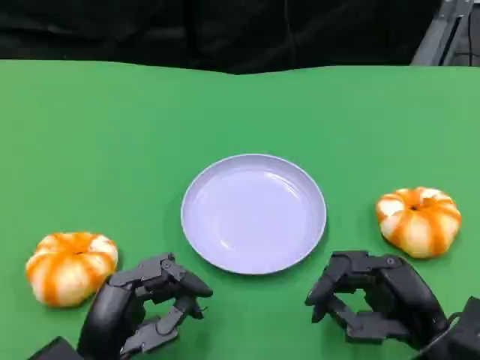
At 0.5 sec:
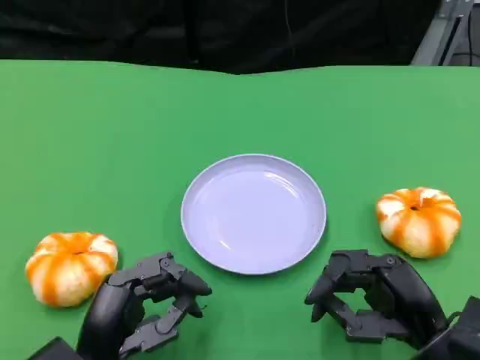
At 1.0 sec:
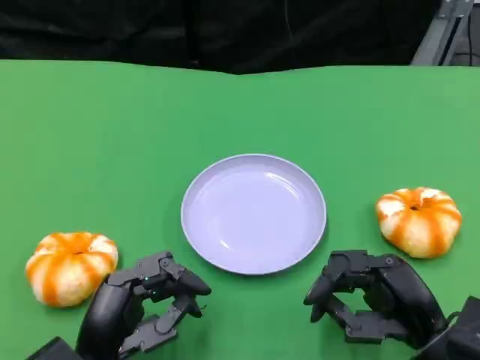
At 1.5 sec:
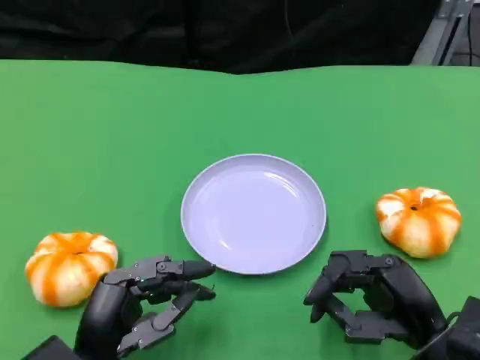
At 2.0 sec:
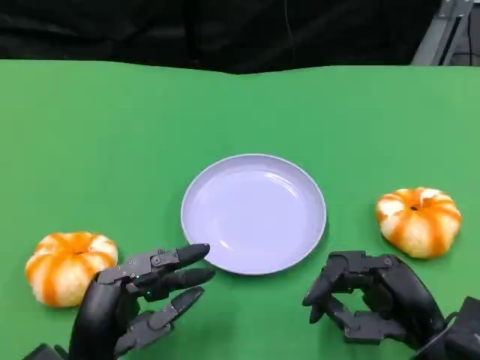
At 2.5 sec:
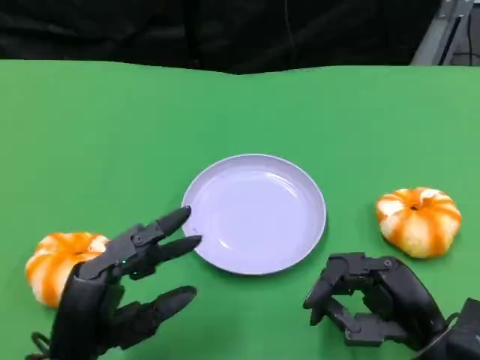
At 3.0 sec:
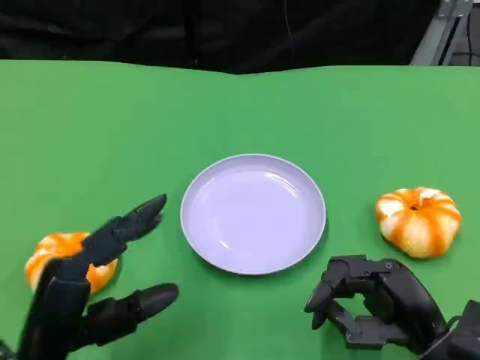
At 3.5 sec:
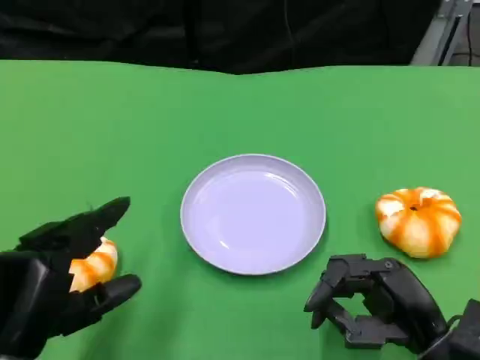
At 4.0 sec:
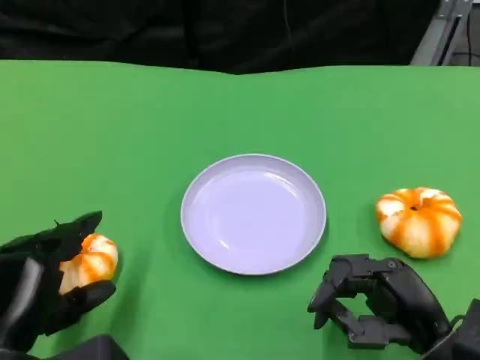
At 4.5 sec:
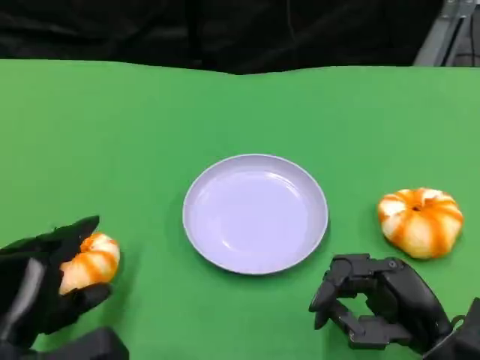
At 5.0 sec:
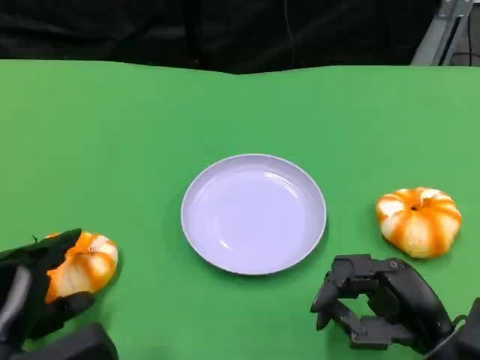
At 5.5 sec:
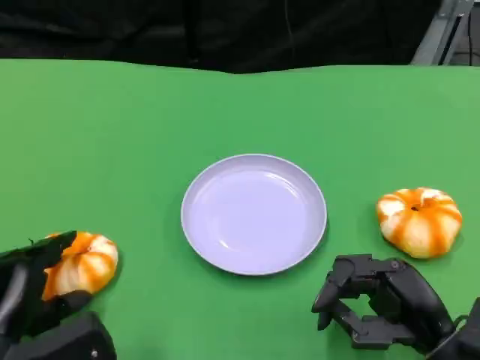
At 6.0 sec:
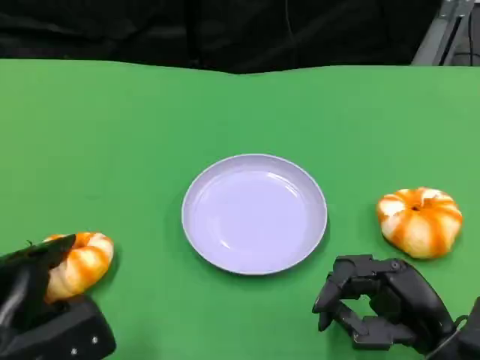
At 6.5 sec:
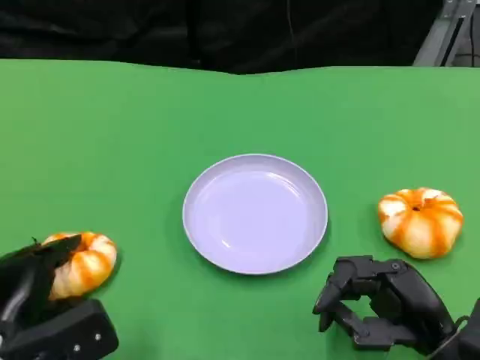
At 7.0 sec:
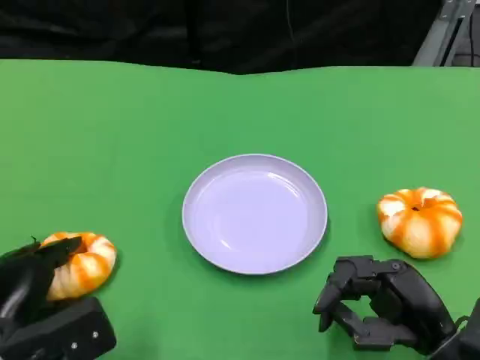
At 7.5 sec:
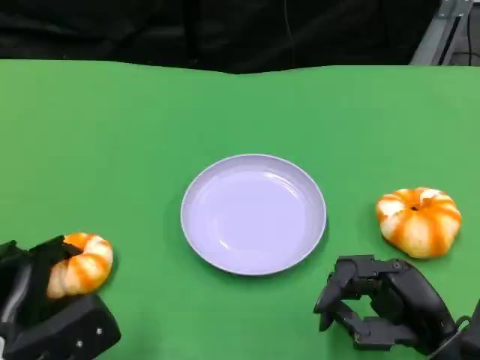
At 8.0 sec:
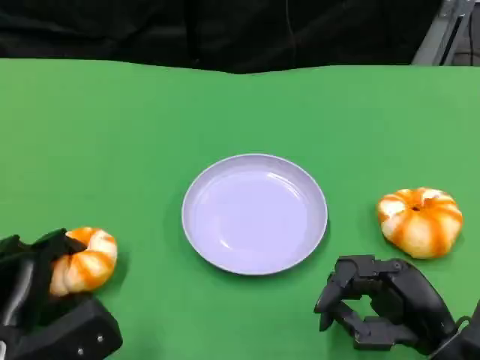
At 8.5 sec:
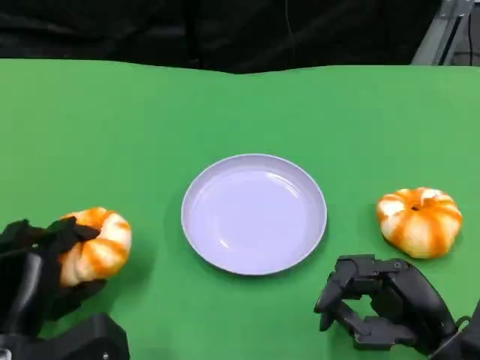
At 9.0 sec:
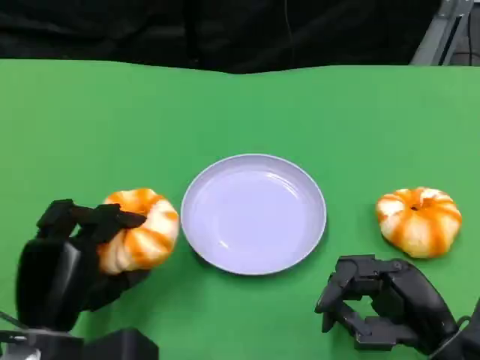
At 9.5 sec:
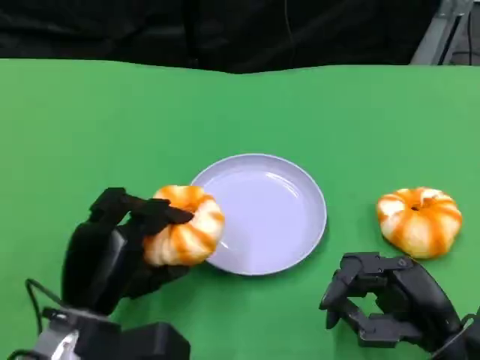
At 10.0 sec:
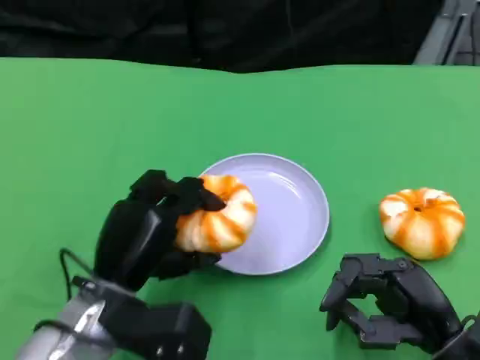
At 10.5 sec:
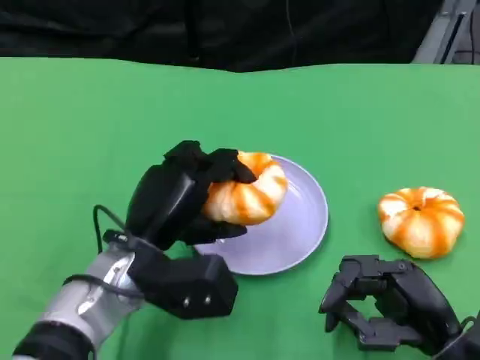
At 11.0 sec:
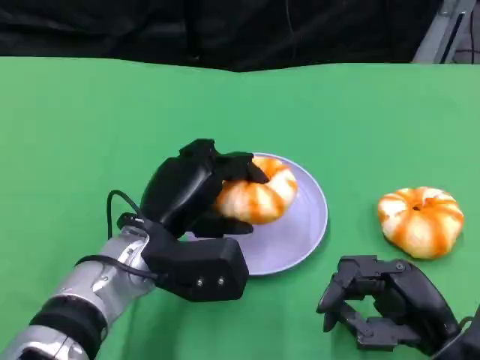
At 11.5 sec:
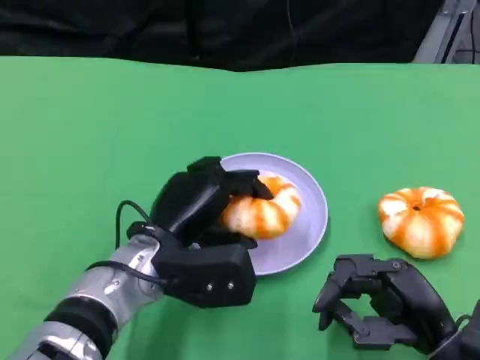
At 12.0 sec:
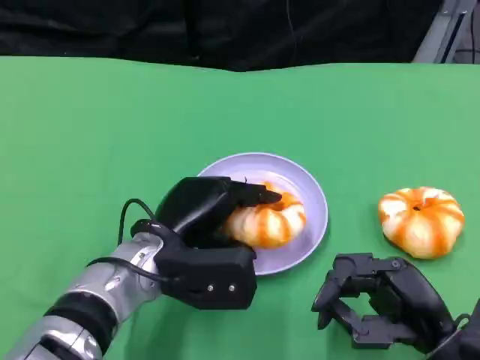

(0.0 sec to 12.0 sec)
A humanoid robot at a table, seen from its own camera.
Task of the whole recording: Grasp the bread from the table and place it into the plate.
0.0 sec - 2.0 sec: The hands make only small movements.
2.0 sec - 4.0 sec: The left hand heads to the left, covering roughly 5 cm.
4.0 sec - 6.0 sec: The left hand shifts by some 5 cm.
6.0 sec - 8.0 sec: The hands stay close to where they were, moving slightly.
8.0 sec - 10.0 sec: The left hand travels to the right by some 10 cm.
10.0 sec - 12.0 sec: The left hand shifts by some 5 cm.

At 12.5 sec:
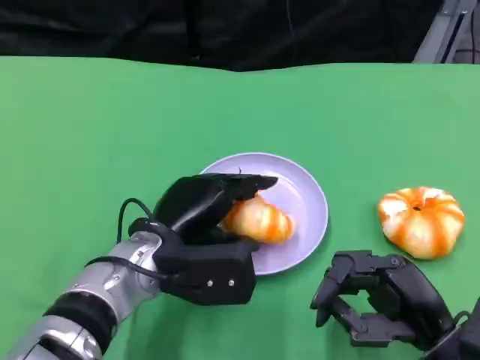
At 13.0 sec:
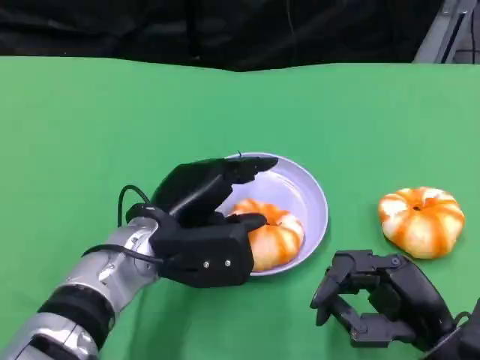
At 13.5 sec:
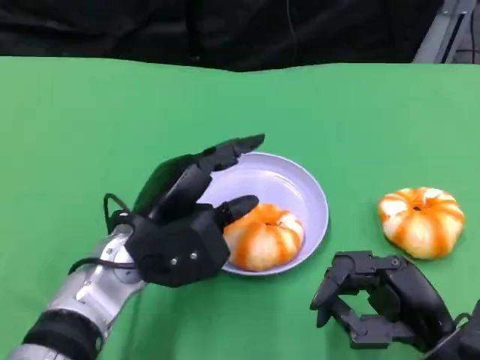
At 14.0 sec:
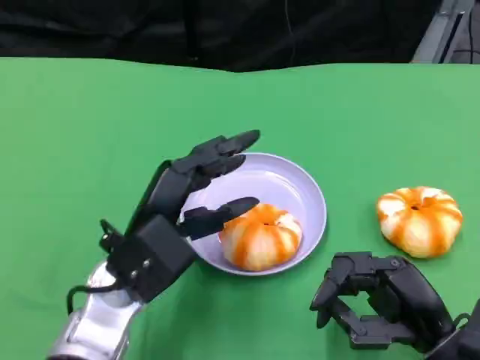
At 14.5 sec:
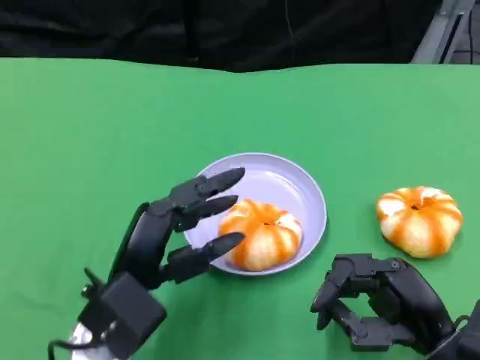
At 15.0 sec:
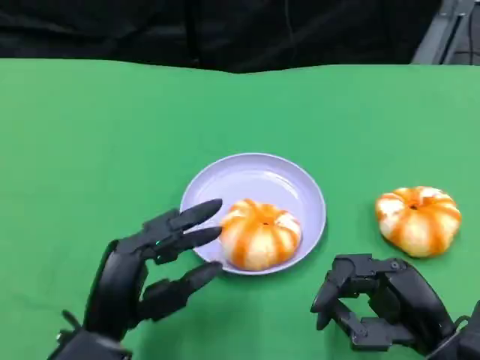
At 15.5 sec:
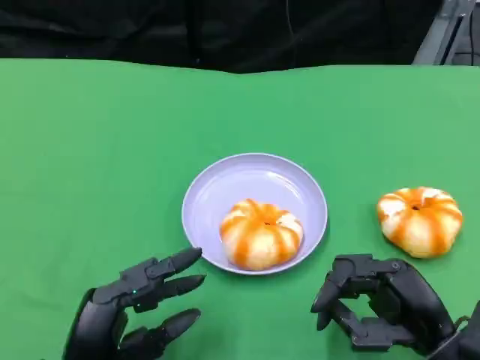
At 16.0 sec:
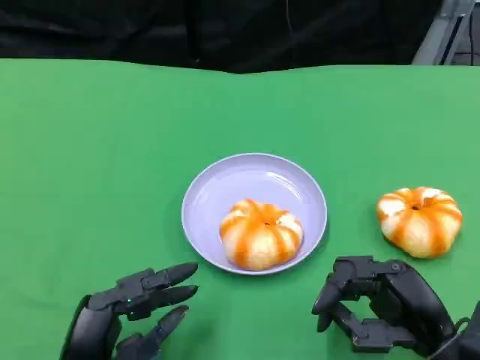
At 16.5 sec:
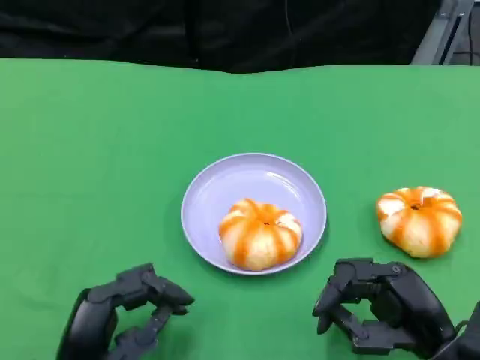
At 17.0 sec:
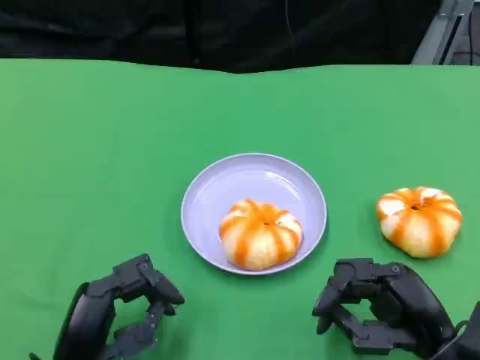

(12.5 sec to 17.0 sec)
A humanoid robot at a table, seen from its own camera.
Task of the whole recording: Grasp the bread from the table and place it into the plate.
12.5 sec - 14.5 sec: The left hand heads backward, covering roughly 5 cm.
14.5 sec - 17.0 sec: The left hand travels downward and backward by some 10 cm.

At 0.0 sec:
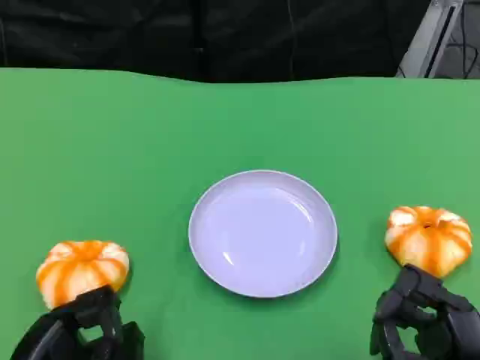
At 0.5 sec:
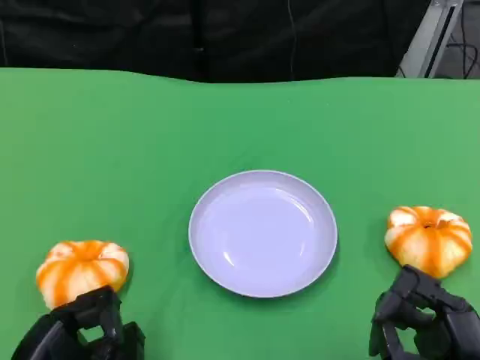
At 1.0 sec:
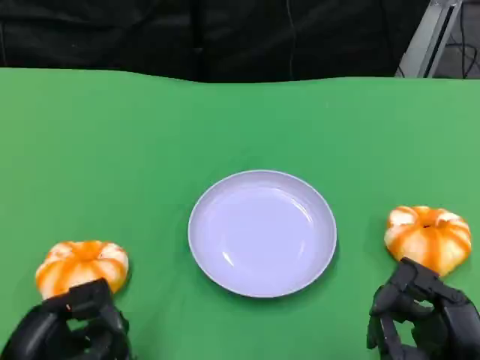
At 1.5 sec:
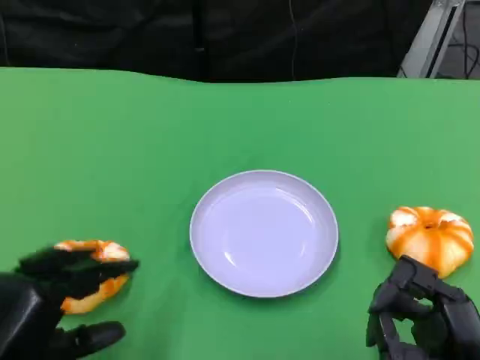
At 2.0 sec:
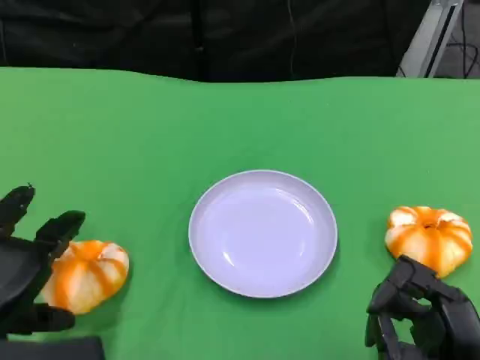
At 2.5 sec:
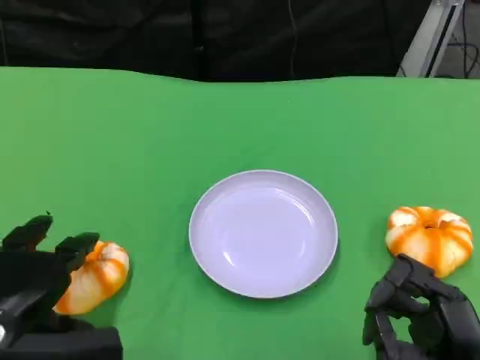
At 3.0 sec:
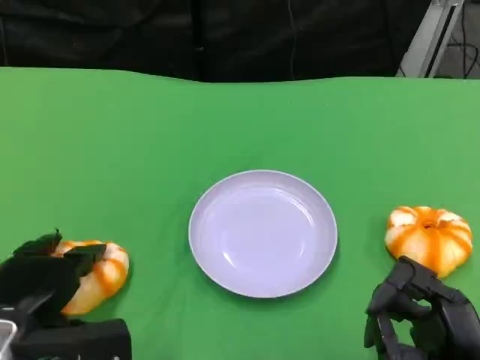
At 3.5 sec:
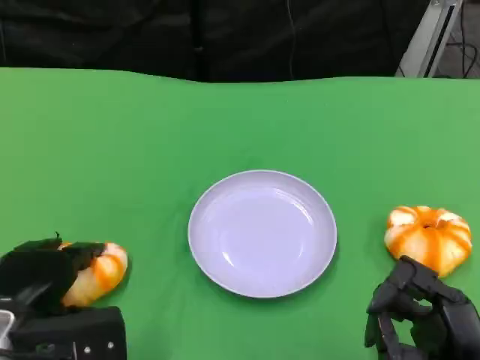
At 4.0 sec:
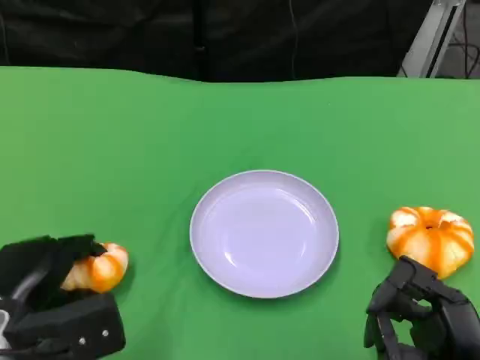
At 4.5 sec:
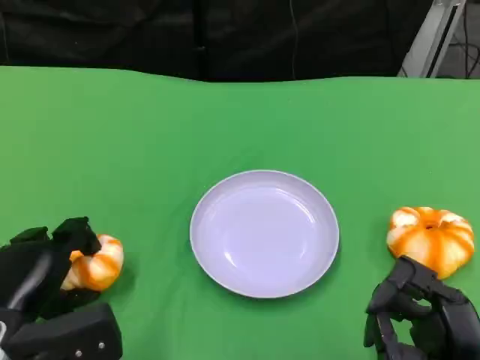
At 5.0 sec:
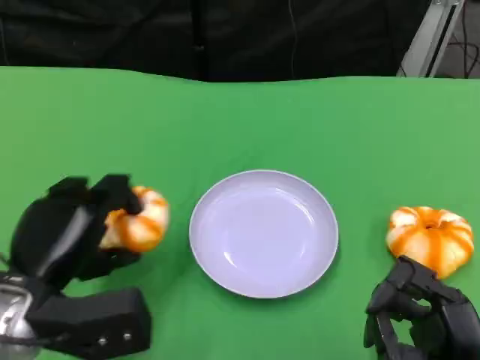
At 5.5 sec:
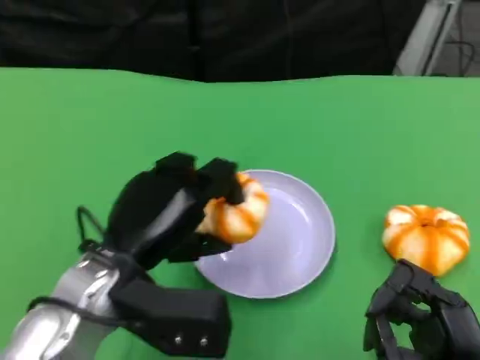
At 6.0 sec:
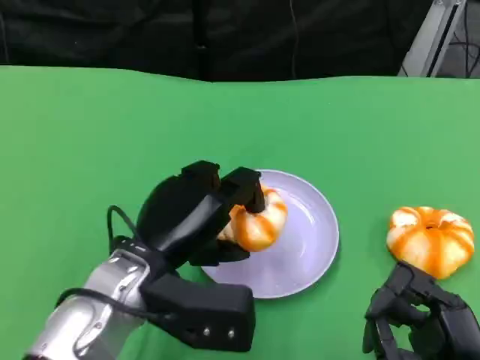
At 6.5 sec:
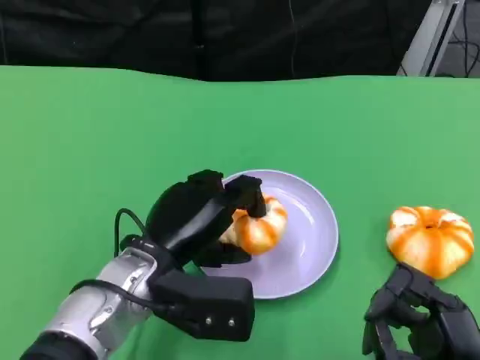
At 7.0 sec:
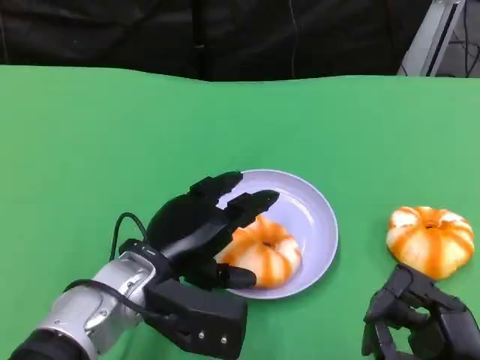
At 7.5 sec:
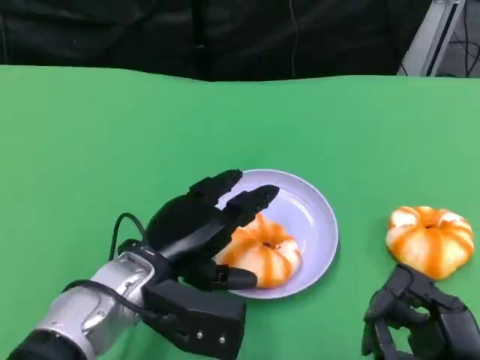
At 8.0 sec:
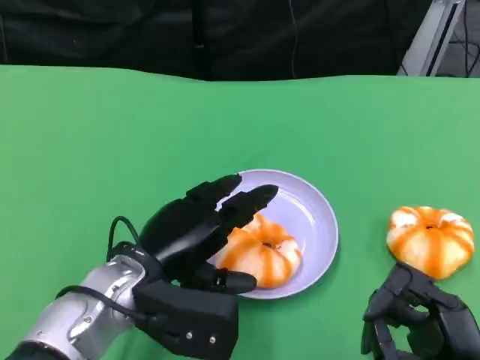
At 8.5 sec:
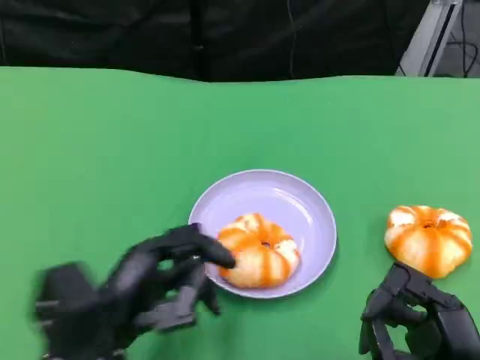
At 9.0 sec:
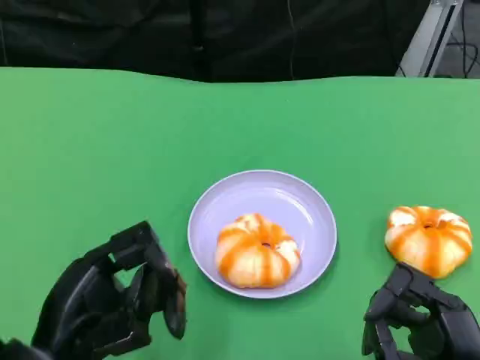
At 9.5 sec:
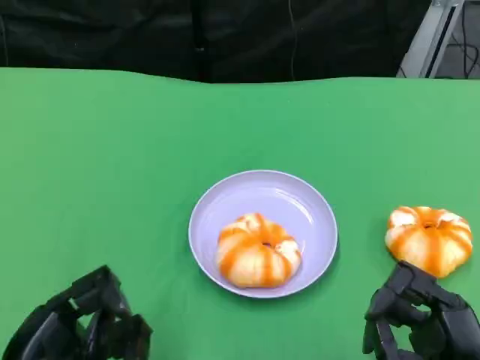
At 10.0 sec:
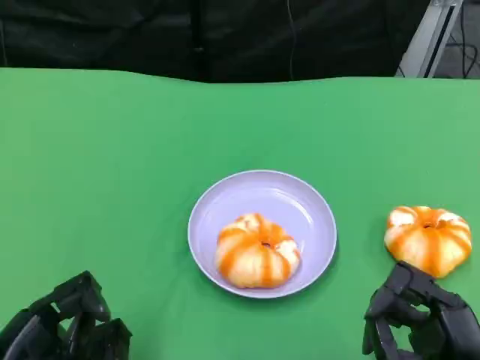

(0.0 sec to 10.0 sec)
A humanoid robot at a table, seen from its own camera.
Task of the whole recording: Grasp the bread from the table and place it into the plate.
0.0 sec - 2.0 sec: The left hand heads upward, covering approximately 5 cm.
2.0 sec - 4.0 sec: The left hand moves downward, some 5 cm.
4.0 sec - 6.0 sec: The left hand travels to the right by approximately 15 cm.
6.0 sec - 8.0 sec: The hands move only a little.
8.0 sec - 10.0 sec: The left hand goes approximately 20 cm to the left and backward.
